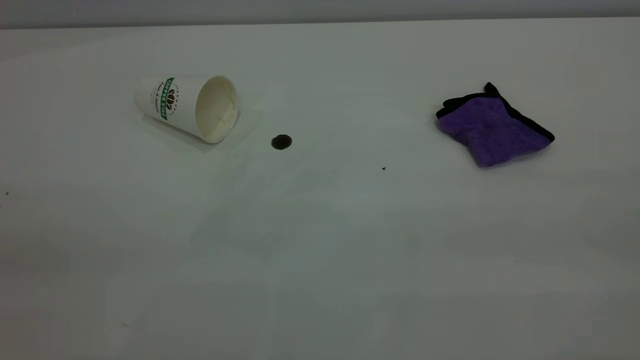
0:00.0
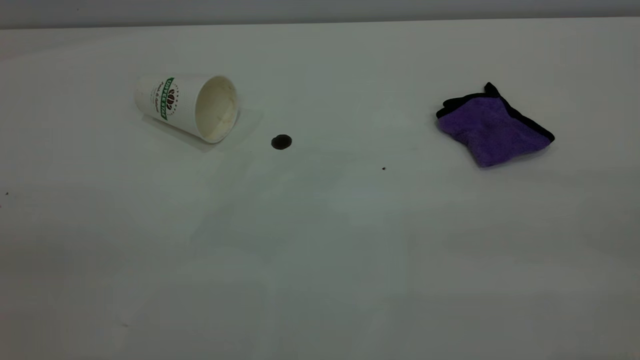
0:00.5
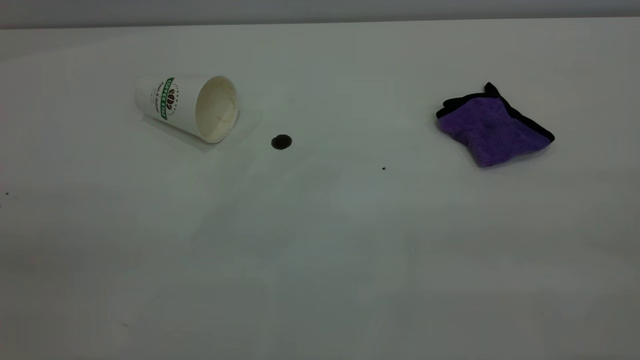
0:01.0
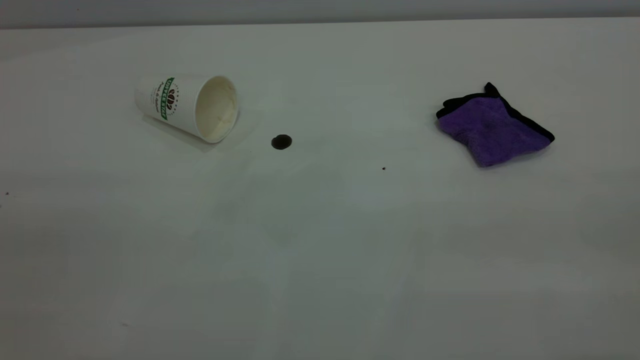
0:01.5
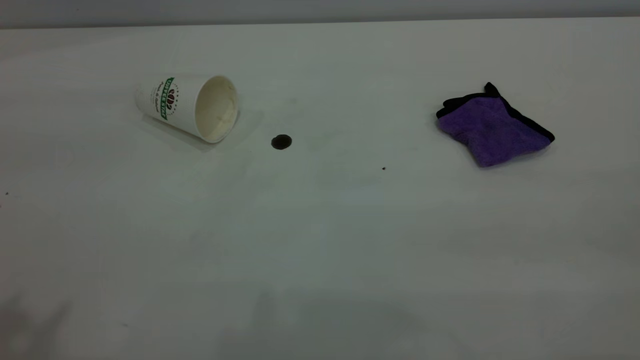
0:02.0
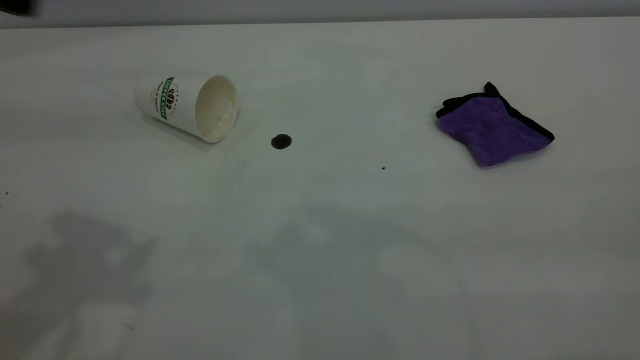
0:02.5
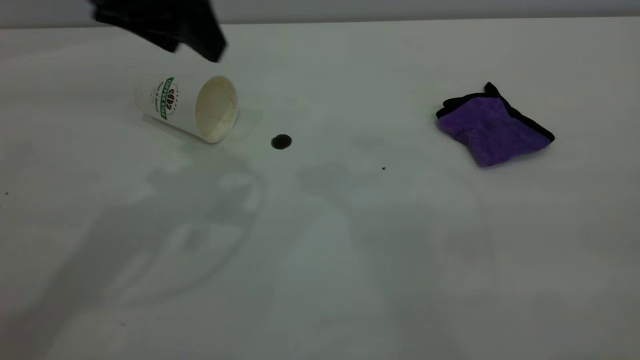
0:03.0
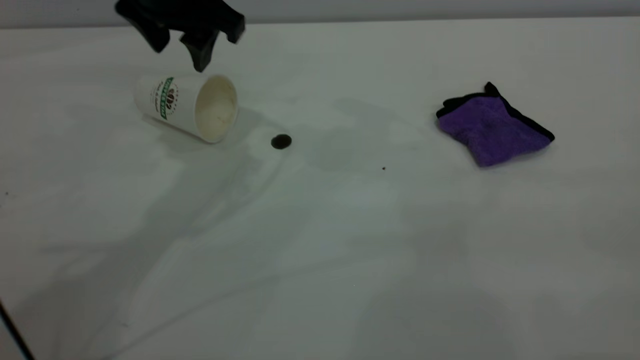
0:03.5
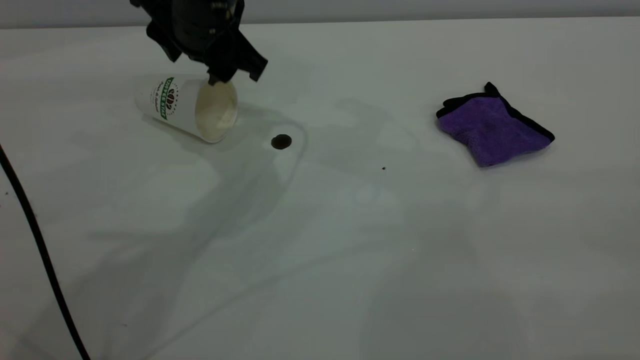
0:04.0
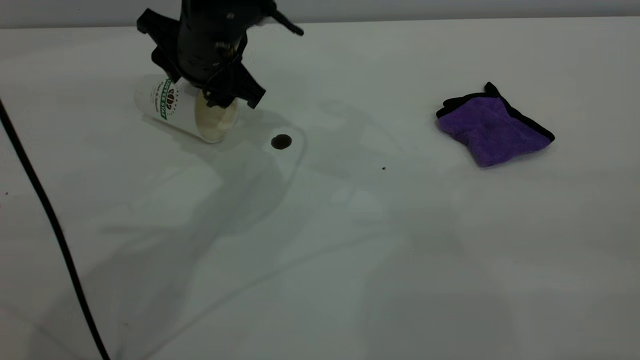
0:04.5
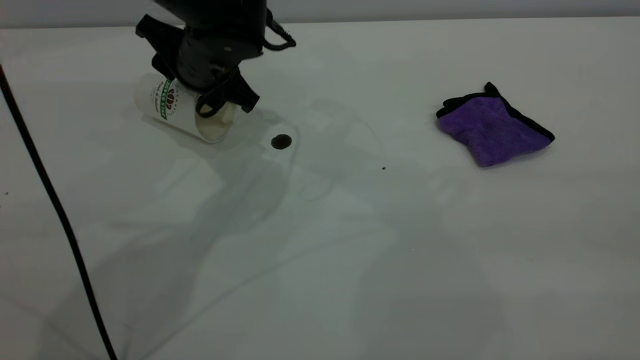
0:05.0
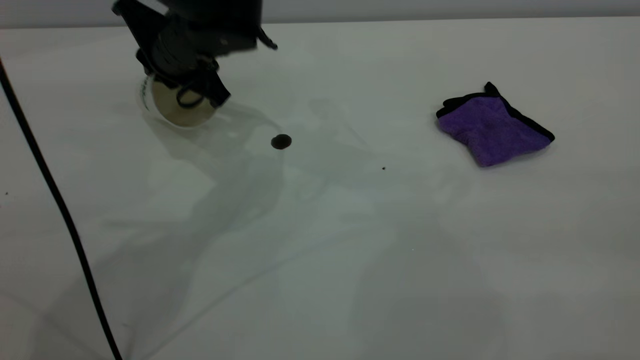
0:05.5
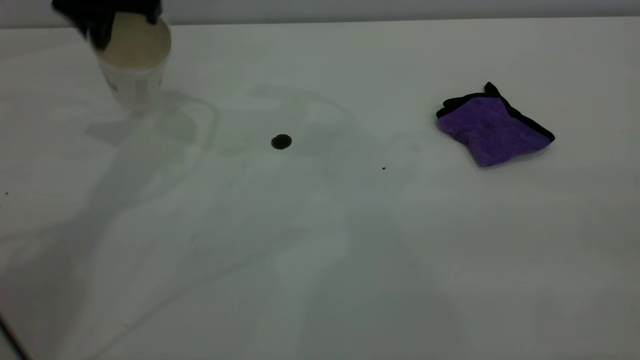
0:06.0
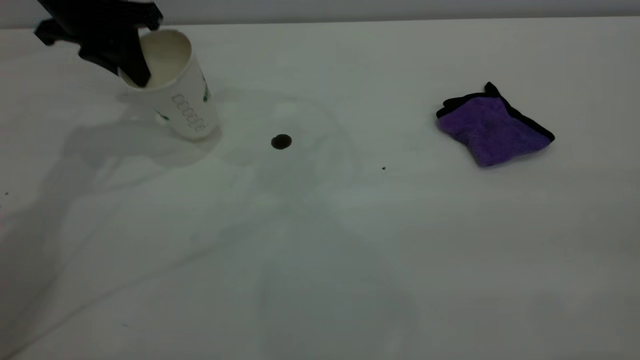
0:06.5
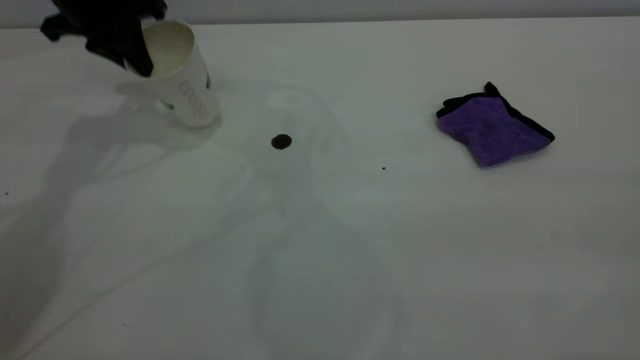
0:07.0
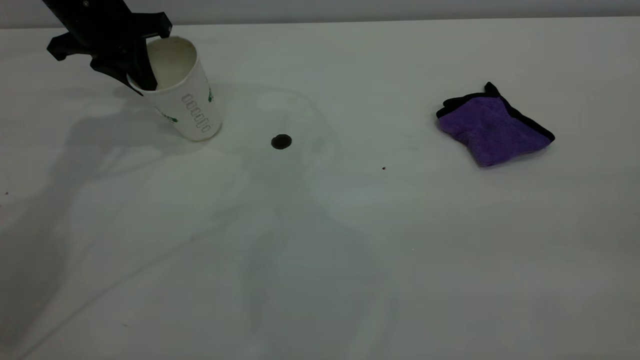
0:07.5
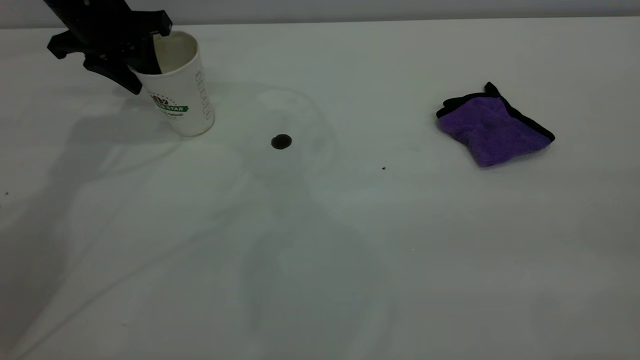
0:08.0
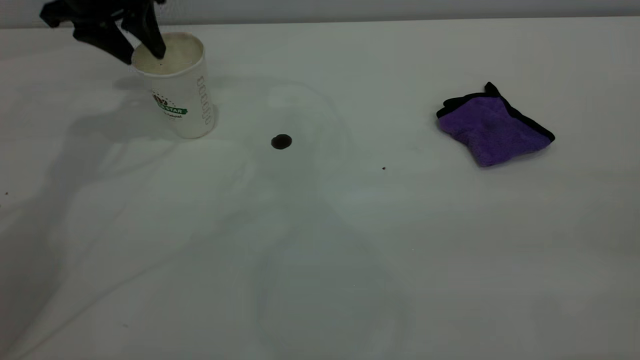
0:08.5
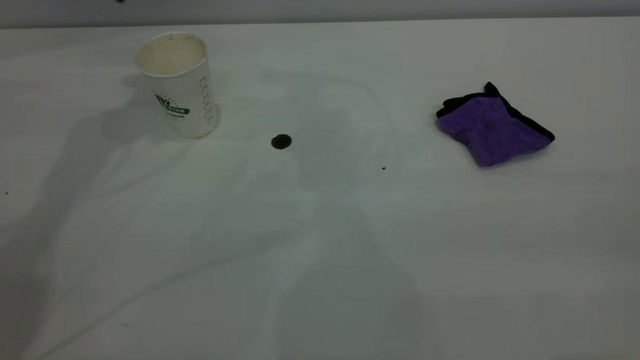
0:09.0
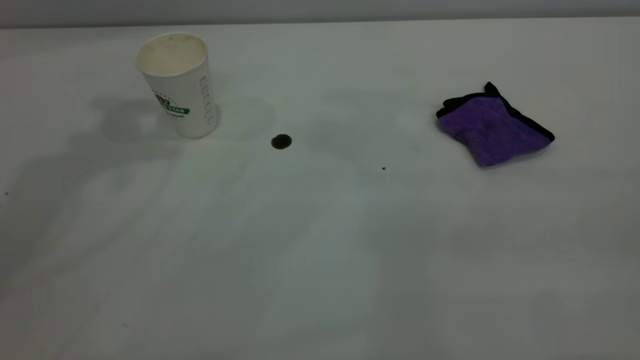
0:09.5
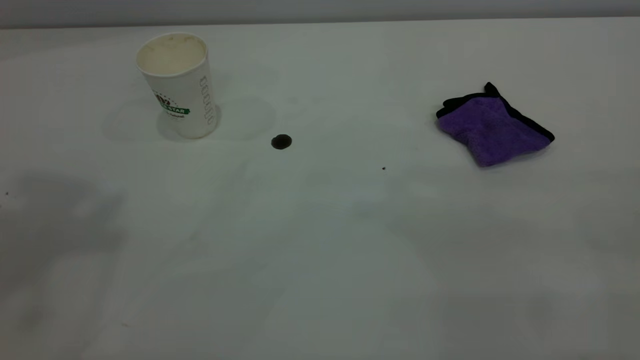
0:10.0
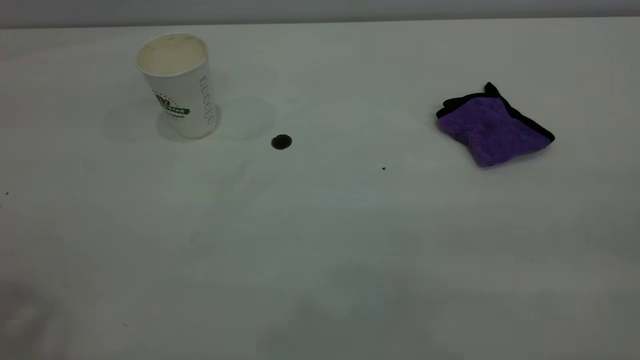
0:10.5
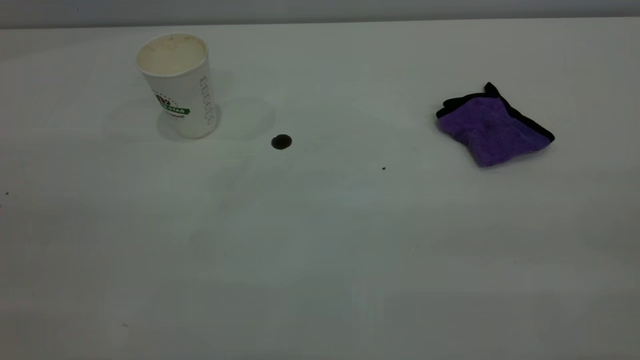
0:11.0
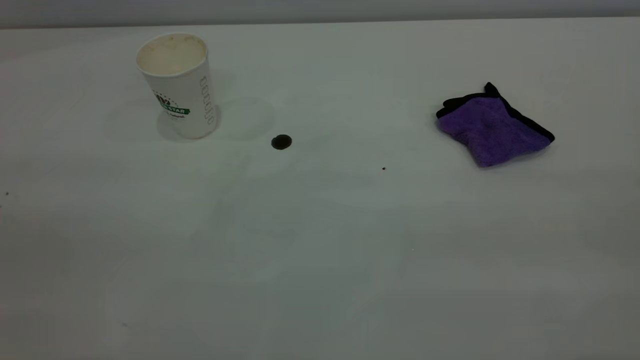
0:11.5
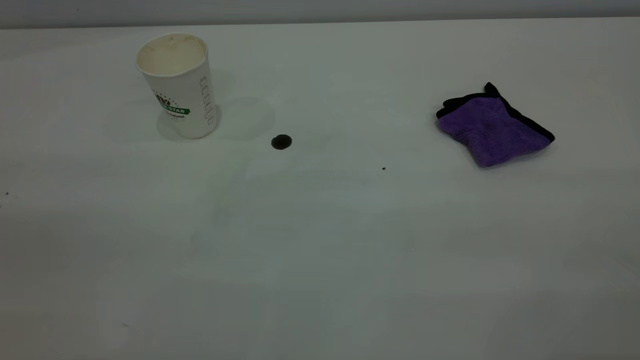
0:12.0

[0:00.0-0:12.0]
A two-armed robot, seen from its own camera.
Task of the whole recording: the left gripper pick up the fallen cup and place it upright, the right gripper grasp the purple rag and wipe the coffee stain on the table, the right gripper put the purple rag back in its original position.
Step, 0:00.0 to 0:08.5: Stand the paper cup upright.
0:02.0 to 0:04.0: The left gripper heads forward, downward and to the right, covering some 40 cm.
0:04.0 to 0:06.0: The left gripper is displaced to the left and upward by some 15 cm, and closes.
0:06.0 to 0:08.0: The left gripper heads downward, covering roughly 5 cm, and opens.
0:08.0 to 0:10.0: The left gripper shifts some 50 cm upward and backward.

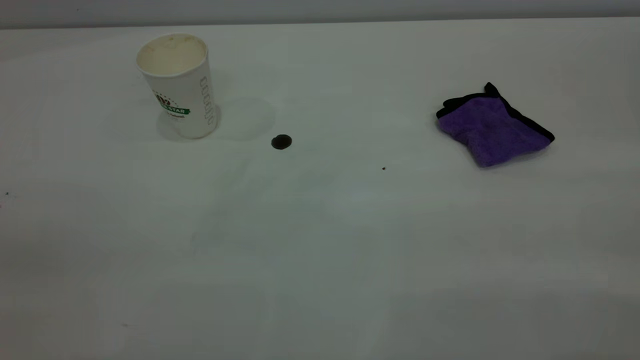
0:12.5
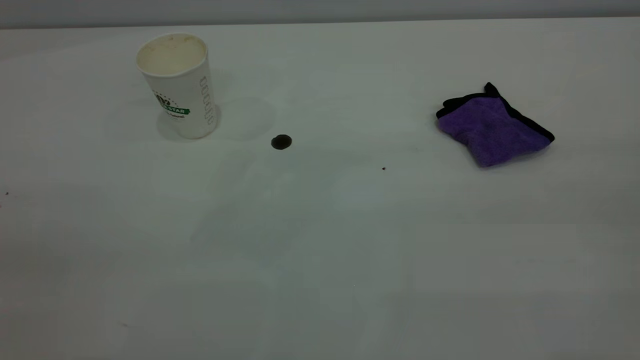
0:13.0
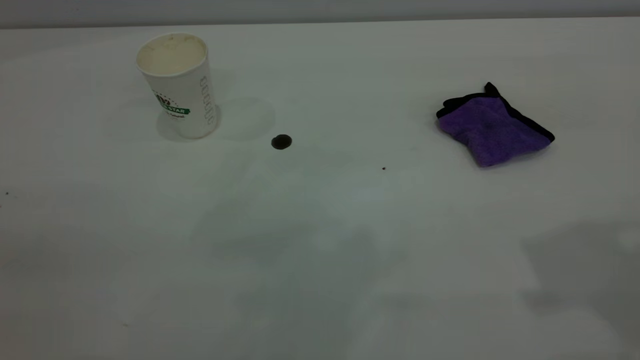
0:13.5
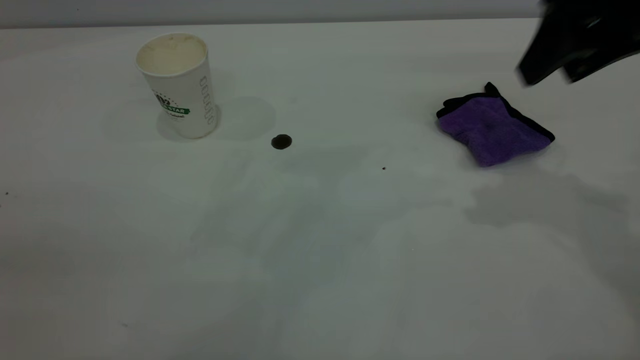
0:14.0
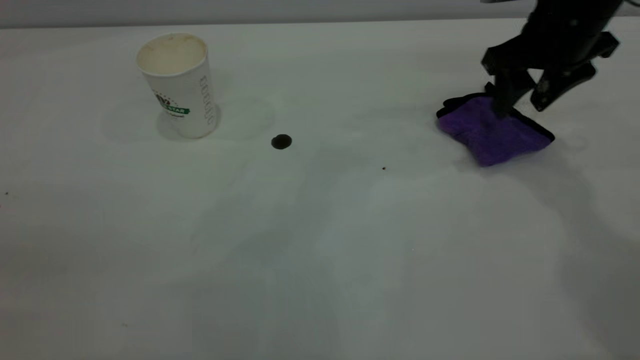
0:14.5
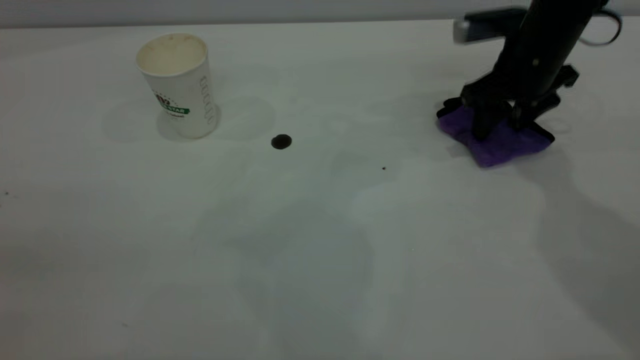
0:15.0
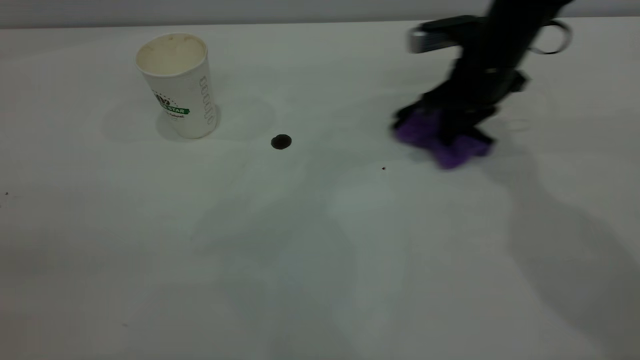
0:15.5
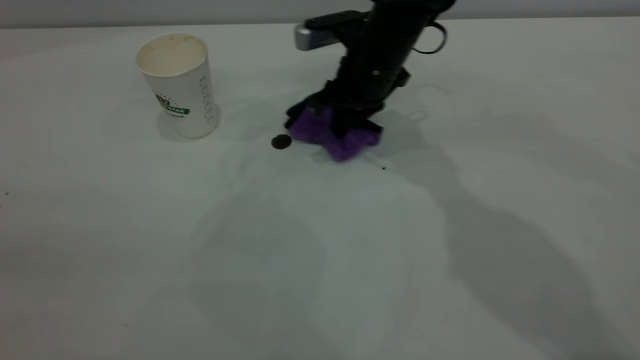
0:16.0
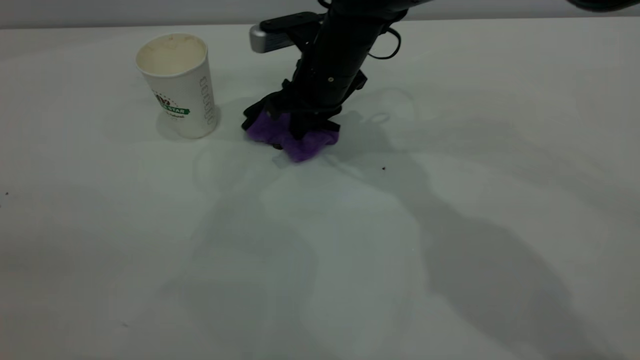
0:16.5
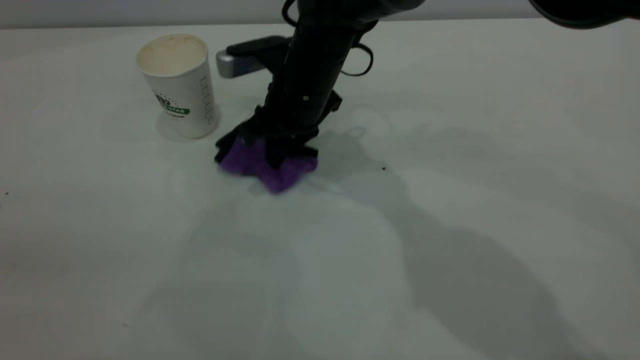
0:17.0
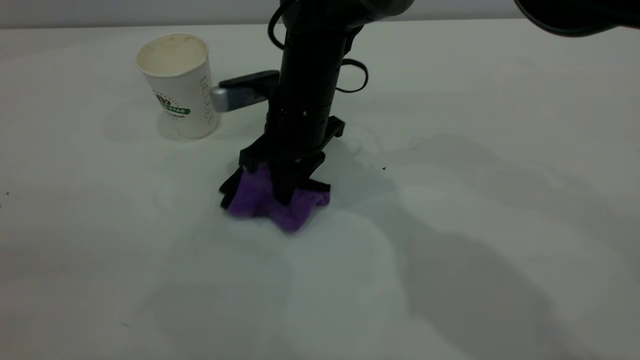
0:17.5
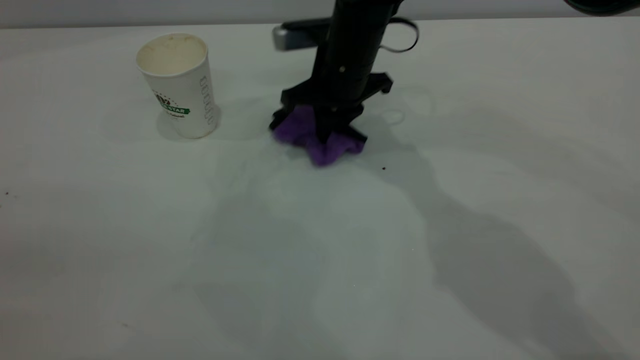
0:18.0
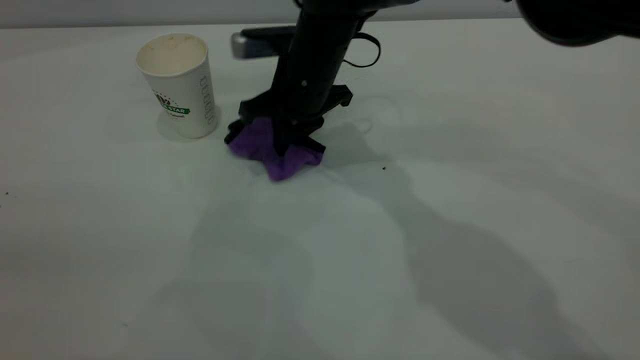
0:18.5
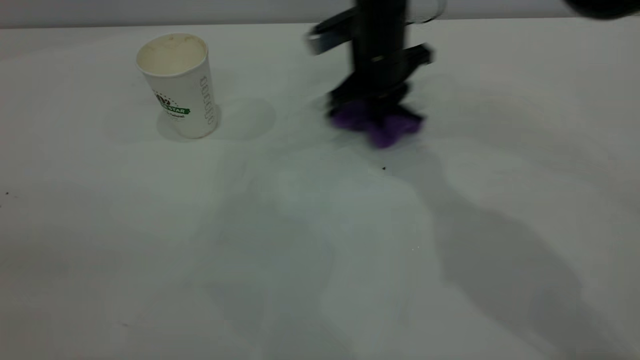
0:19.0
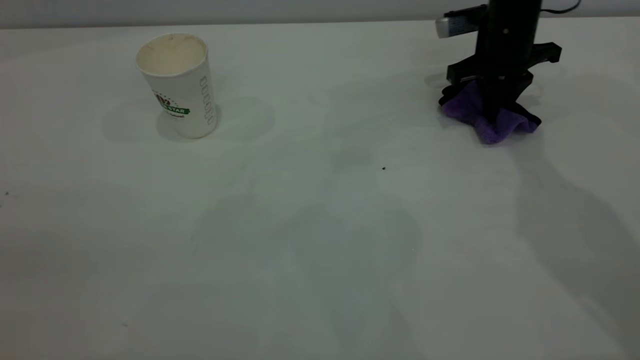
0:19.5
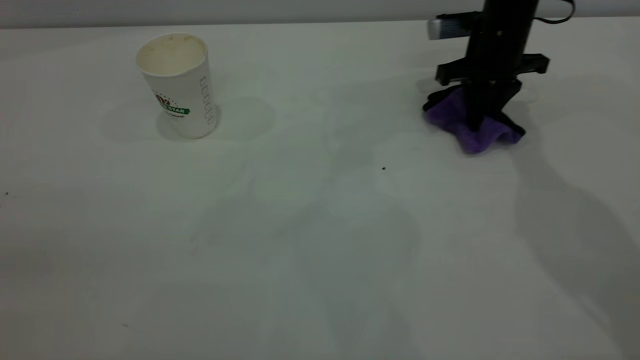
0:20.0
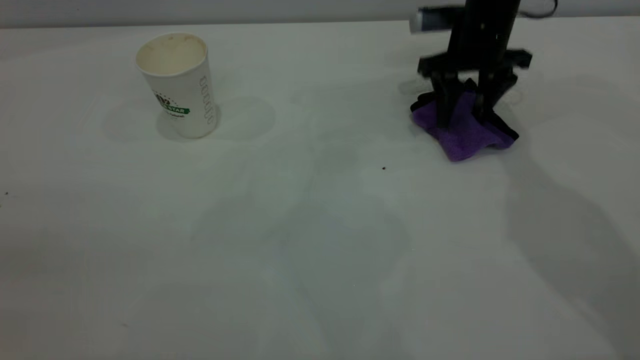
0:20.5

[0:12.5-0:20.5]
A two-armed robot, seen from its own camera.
Task of the whole recording: the left gripper pick up the fallen cup and place it upright, the right gripper grasp the purple rag and wipe the coffee stain on the table, the right gripper put the purple rag back in its original position.
0:12.5 to 0:14.5: The right gripper travels forward and downward by about 50 cm.
0:14.5 to 0:16.5: The right gripper goes approximately 25 cm to the left, and closes up.
0:18.5 to 0:20.5: The right gripper travels to the right by roughly 20 cm, and opens.
